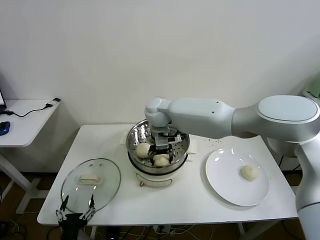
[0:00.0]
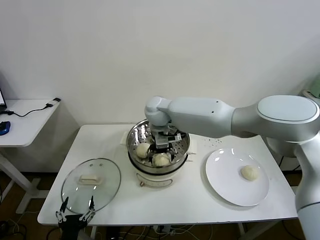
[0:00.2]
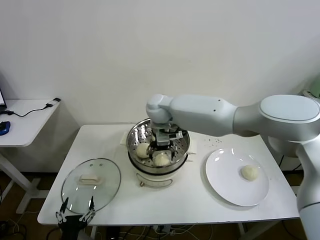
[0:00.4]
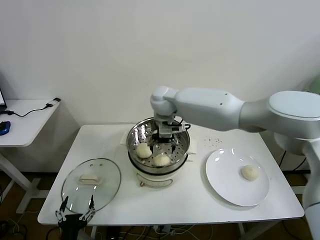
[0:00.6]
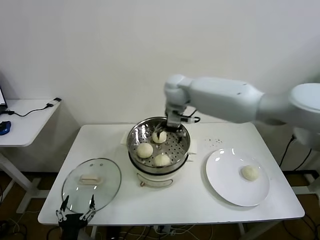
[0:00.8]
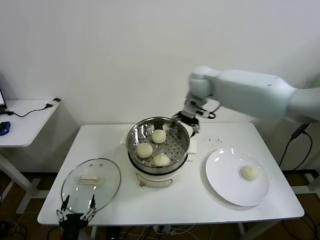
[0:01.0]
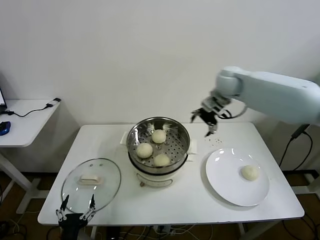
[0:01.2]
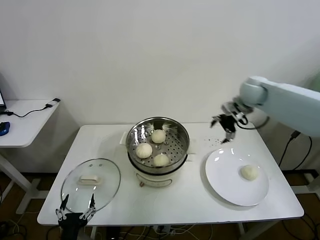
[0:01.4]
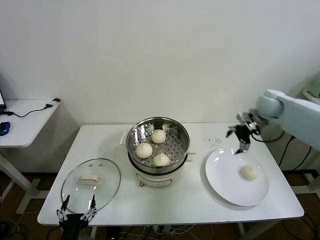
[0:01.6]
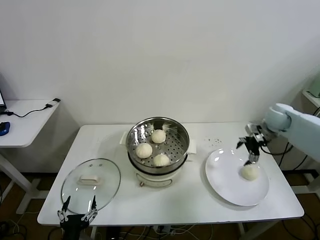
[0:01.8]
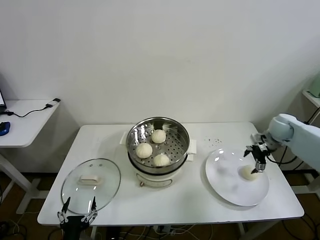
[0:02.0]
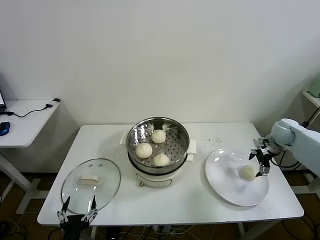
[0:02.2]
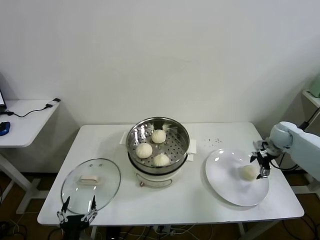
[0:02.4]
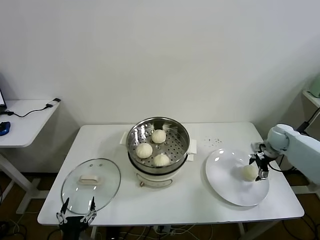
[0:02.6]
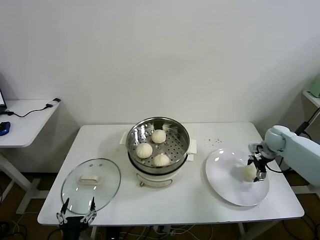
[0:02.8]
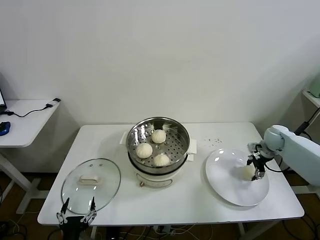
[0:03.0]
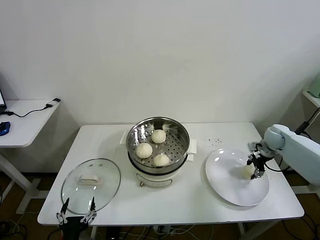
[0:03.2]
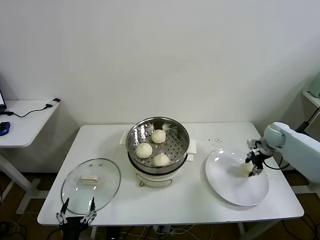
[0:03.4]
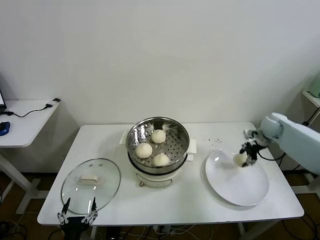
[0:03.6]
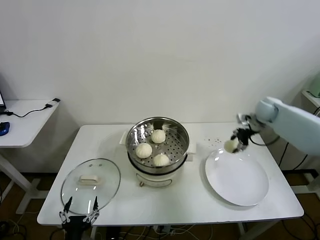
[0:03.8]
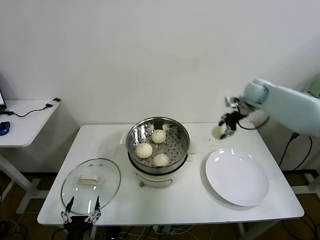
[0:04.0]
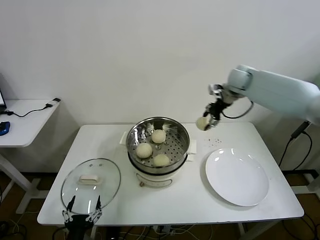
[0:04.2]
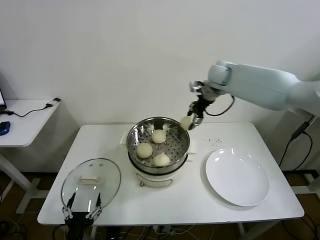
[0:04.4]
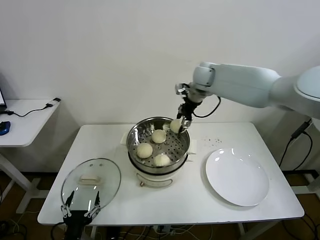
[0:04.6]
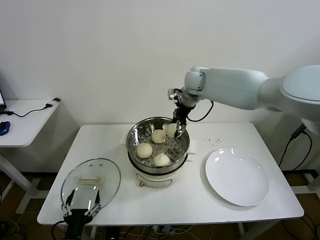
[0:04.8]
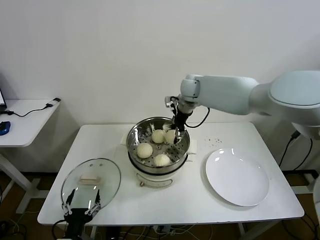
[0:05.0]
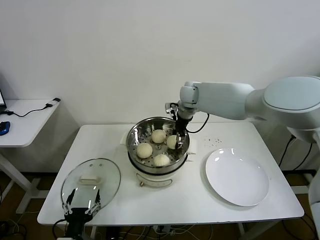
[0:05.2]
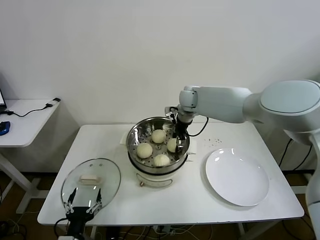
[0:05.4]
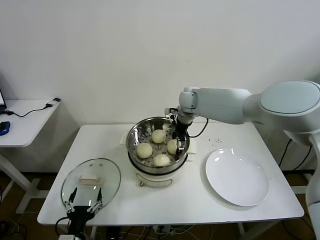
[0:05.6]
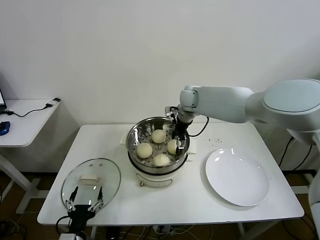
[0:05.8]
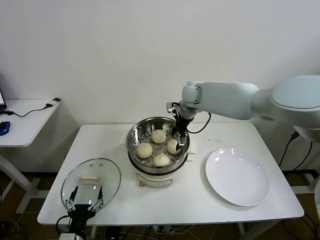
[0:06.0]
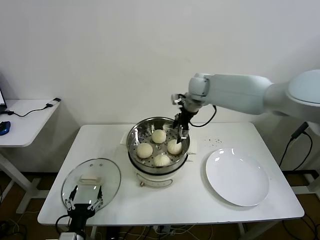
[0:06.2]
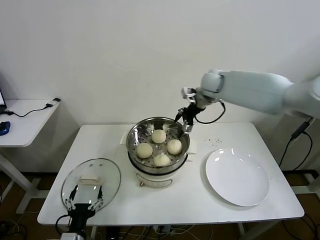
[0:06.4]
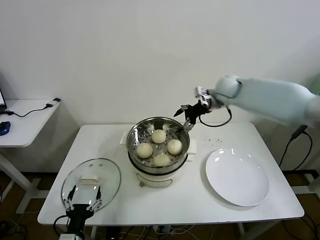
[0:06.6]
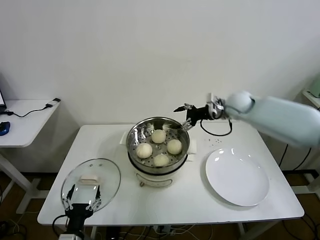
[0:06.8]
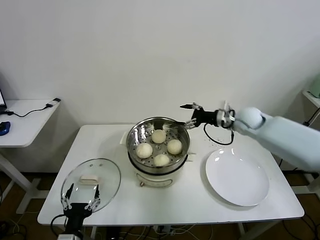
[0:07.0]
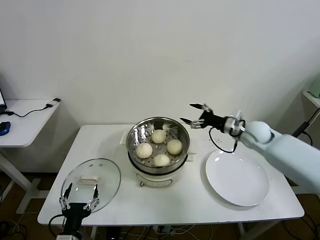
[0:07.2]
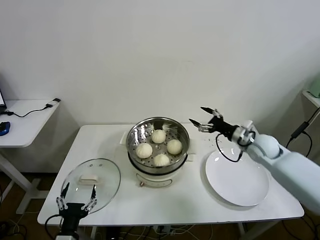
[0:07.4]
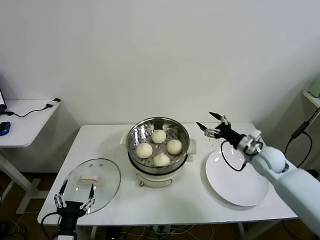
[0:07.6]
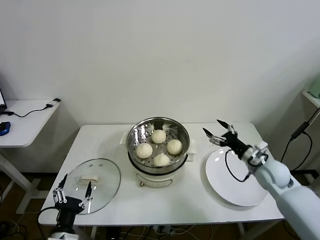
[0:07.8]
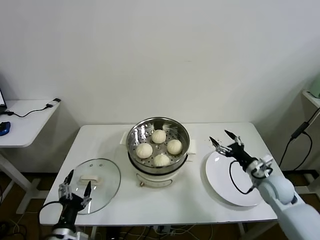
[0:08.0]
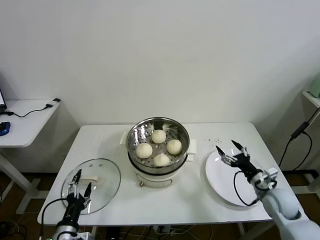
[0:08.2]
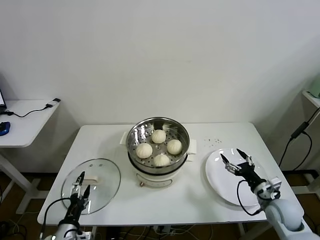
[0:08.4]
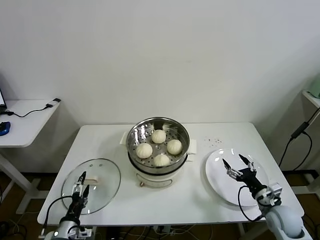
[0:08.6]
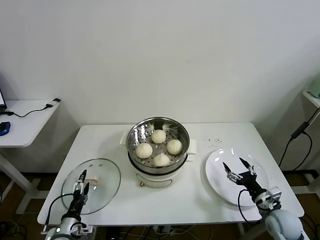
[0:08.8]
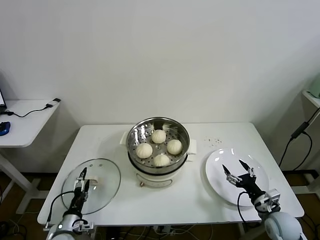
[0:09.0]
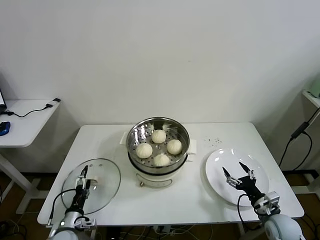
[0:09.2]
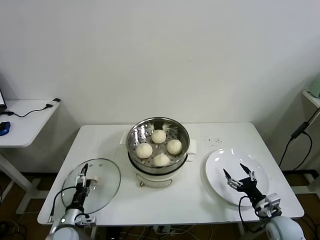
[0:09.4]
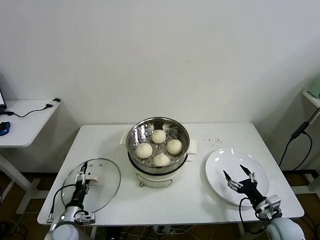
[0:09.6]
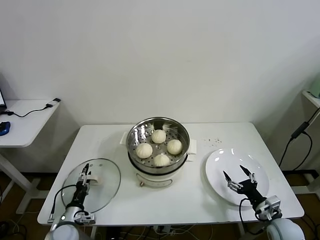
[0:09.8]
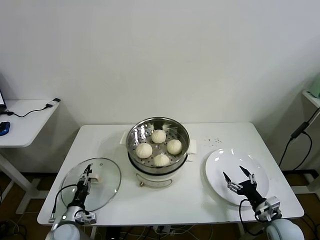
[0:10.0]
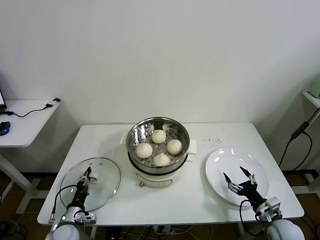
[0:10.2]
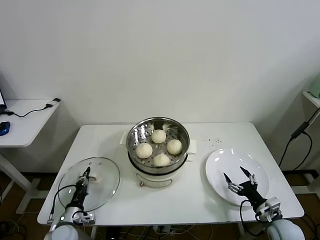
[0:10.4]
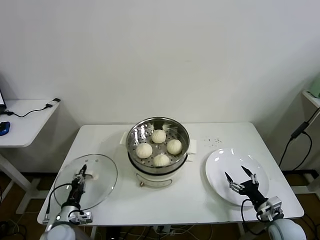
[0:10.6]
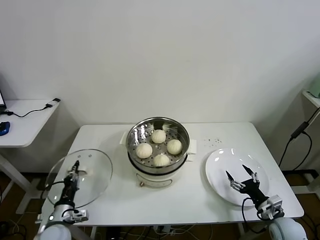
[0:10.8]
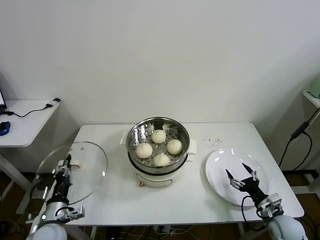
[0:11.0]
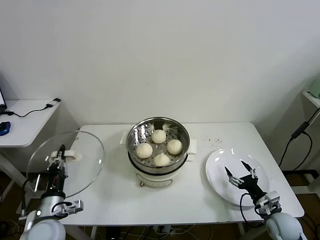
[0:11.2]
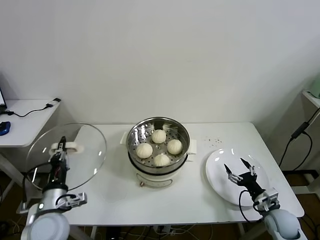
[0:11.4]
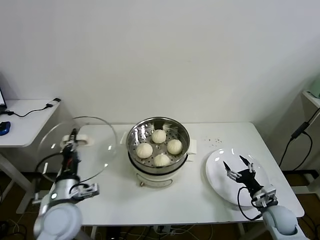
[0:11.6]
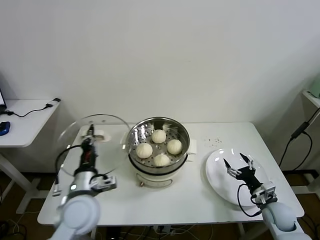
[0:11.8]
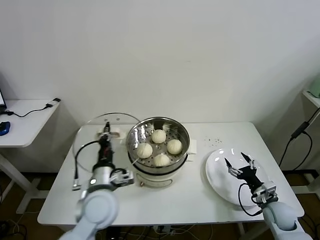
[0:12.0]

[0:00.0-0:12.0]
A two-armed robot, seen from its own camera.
Task of the whole recording: take steamed baozi put them in steamer then cover it.
Step, 0:00.4 to 0:03.2: Grasp the baozi in the plate with right gripper.
Step, 0:03.6 to 0:06.2: Place the baozi on the steamer with right gripper.
Step, 0:06.4 to 0:10.4: Grasp the pot lid with left gripper.
0:00.0 to 0:01.6: The right gripper shifts some 40 cm to the right, and opens.
0:01.6 to 0:03.0: The right gripper is displaced downward and to the right by some 15 cm, and closes its fingers.
0:03.0 to 0:04.4: The right gripper travels to the left and upward by roughly 35 cm, and closes its fingers.
0:04.4 to 0:06.0: The right gripper moves to the left and downward, roughly 10 cm, and opens up.
0:06.0 to 0:07.6: The right gripper is displaced to the right, backward and downward by roughly 35 cm.
0:07.6 to 0:09.0: The left gripper heads downward, forward and to the left, covering some 15 cm; the right gripper heads backward and downward, covering some 20 cm.
0:09.0 to 0:10.4: The left gripper closes.
0:10.4 to 0:12.0: The right gripper moves forward, some 5 cm, while the left gripper shifts about 30 cm upward and to the right.

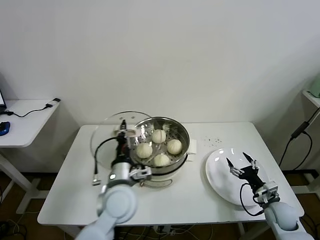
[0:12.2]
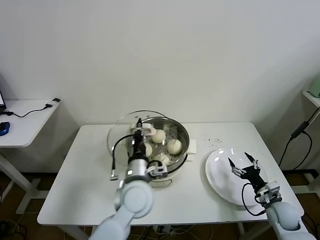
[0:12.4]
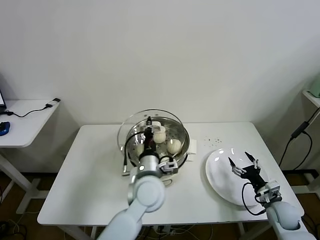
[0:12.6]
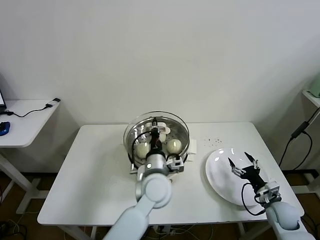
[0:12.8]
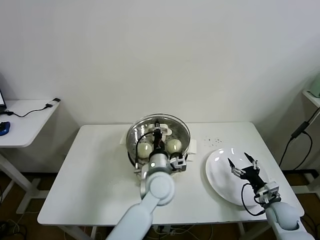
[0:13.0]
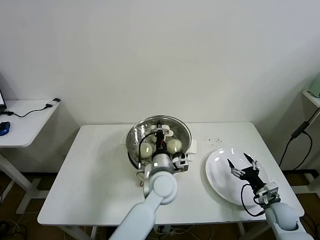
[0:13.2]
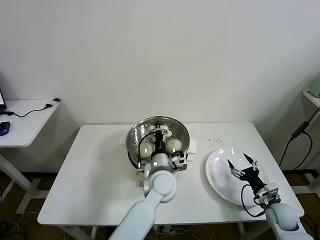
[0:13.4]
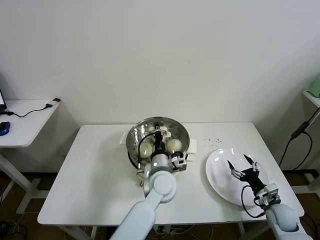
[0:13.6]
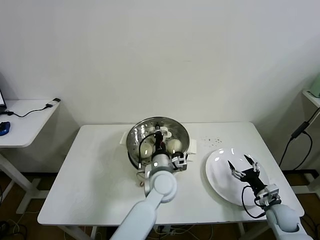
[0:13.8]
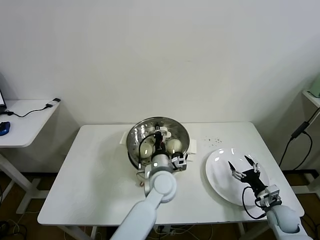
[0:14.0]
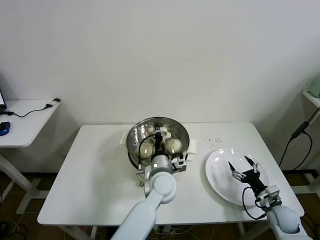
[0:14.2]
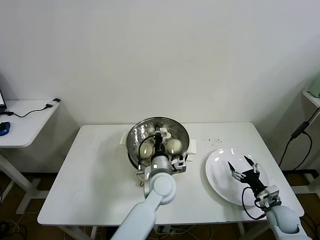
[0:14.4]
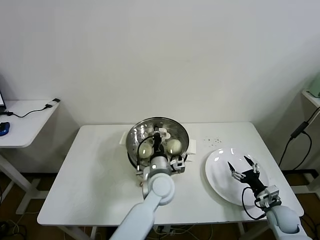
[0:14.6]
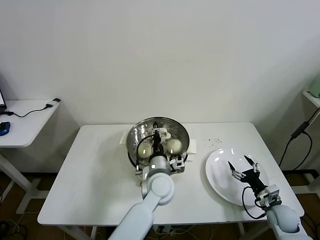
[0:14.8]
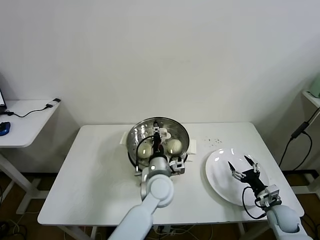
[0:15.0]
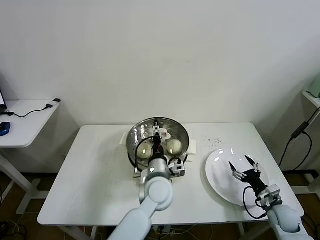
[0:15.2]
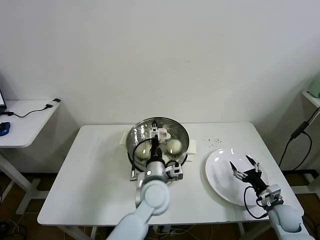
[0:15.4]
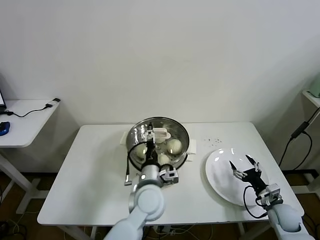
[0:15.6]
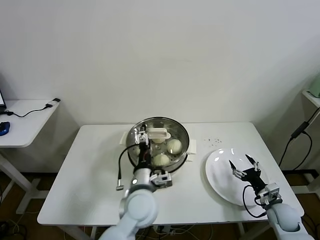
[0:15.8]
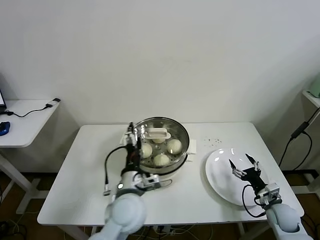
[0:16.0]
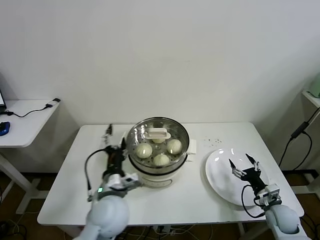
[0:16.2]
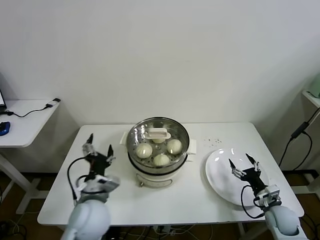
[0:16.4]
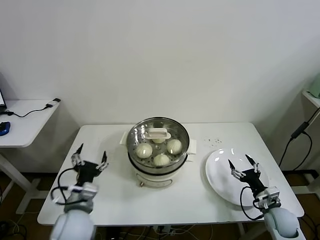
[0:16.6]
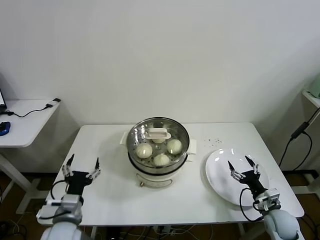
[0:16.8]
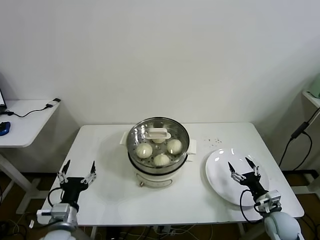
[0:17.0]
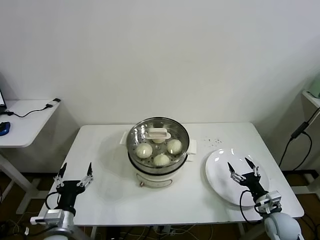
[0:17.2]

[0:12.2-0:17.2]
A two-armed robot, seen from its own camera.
Task of the whole recording: take steamed baozi put them in steamer then cover it.
Step, 0:12.2 to 0:15.0: Place the pot lid on the steamer with left gripper.
0:12.2 to 0:13.8: The left gripper moves to the right and forward, roughly 15 cm.
0:13.8 to 0:15.6: The left gripper shifts by roughly 5 cm, and opens.
0:15.6 to 0:17.2: The left gripper goes roughly 30 cm to the left and backward.
